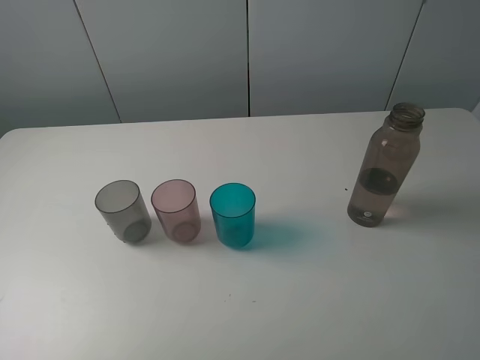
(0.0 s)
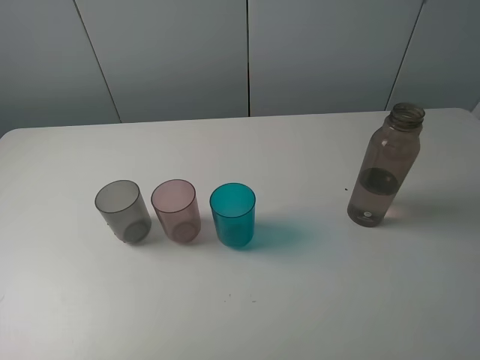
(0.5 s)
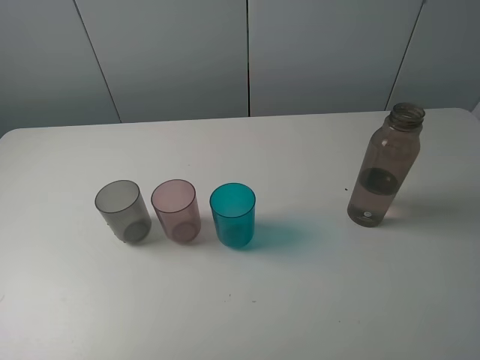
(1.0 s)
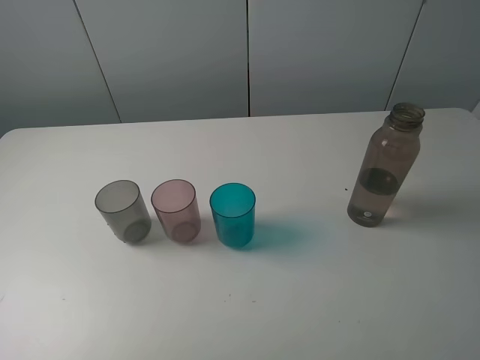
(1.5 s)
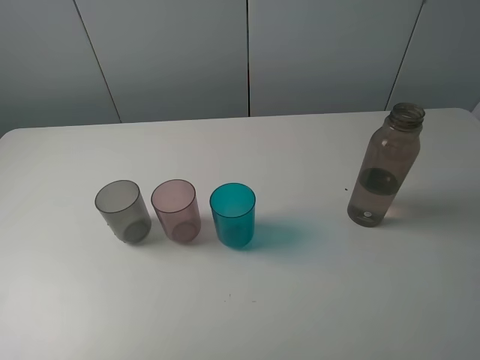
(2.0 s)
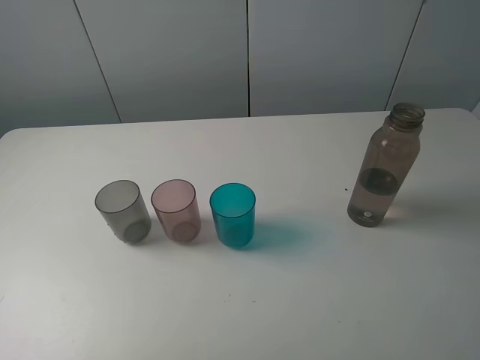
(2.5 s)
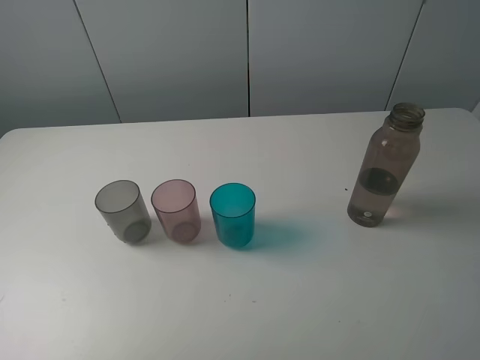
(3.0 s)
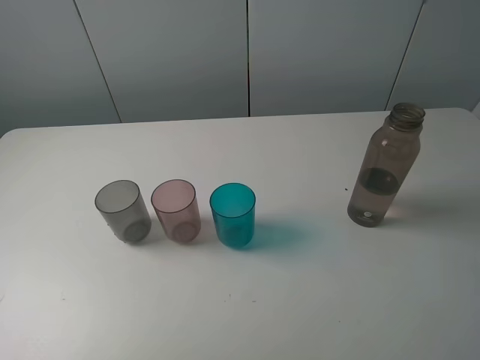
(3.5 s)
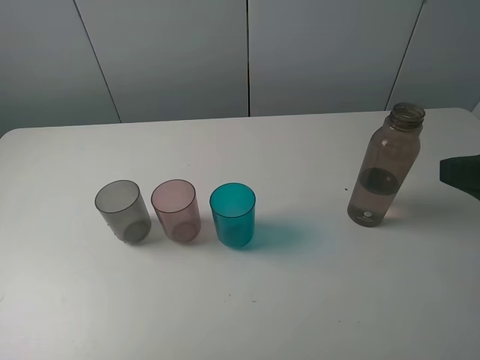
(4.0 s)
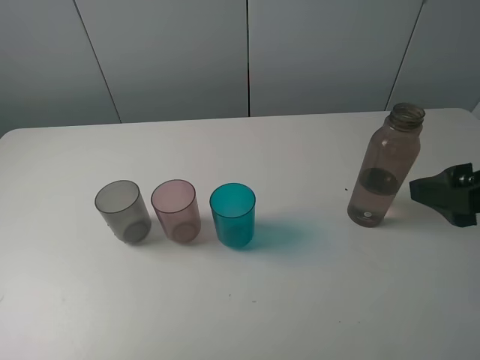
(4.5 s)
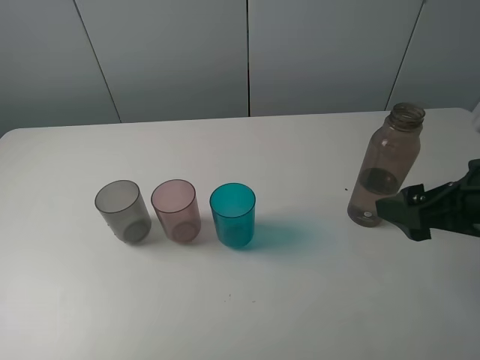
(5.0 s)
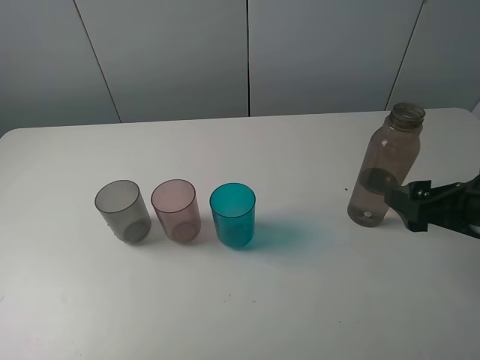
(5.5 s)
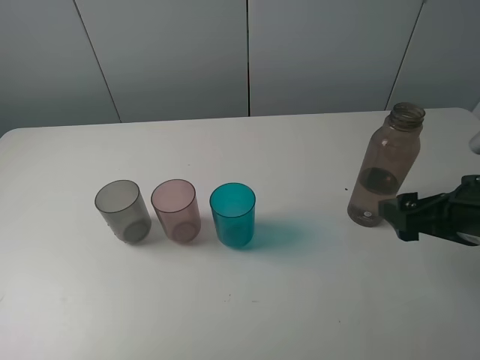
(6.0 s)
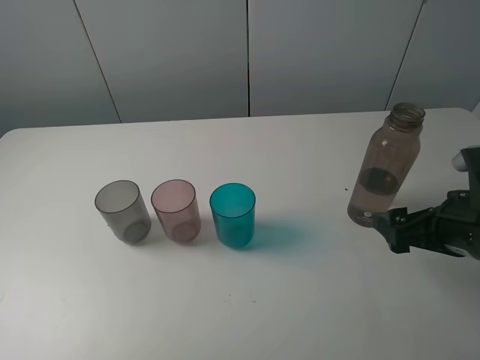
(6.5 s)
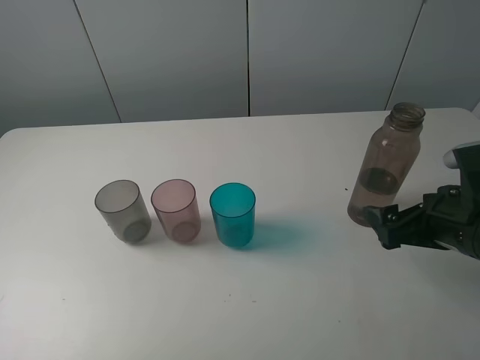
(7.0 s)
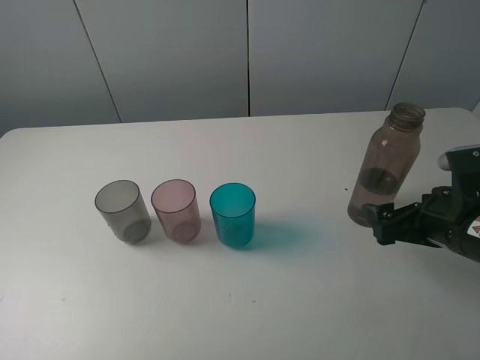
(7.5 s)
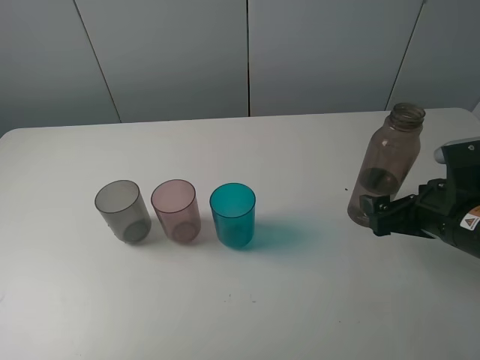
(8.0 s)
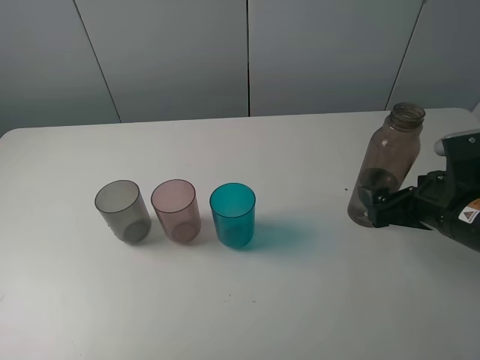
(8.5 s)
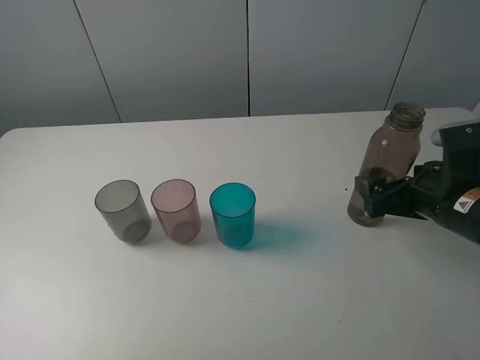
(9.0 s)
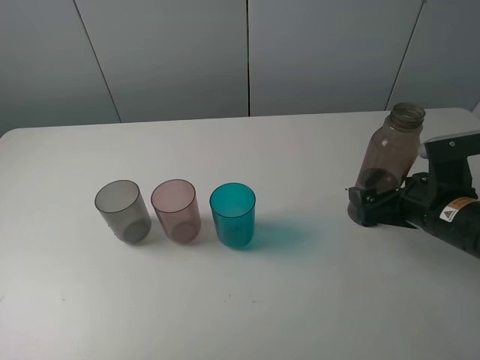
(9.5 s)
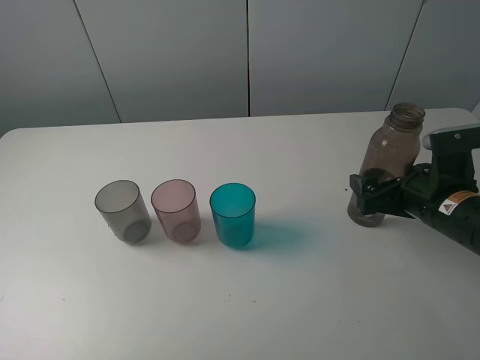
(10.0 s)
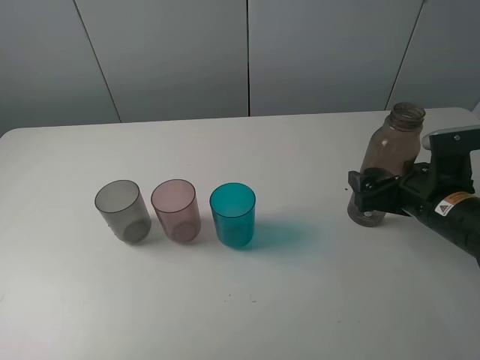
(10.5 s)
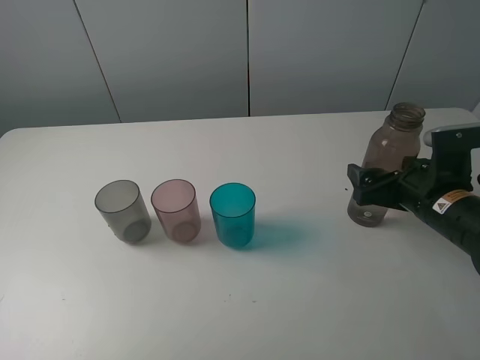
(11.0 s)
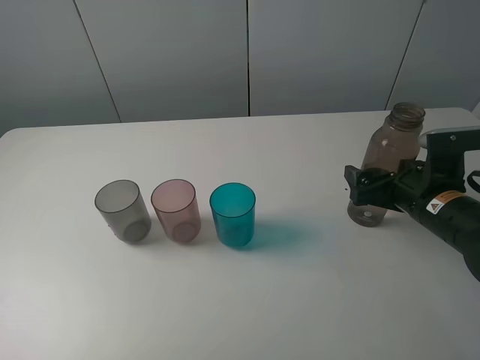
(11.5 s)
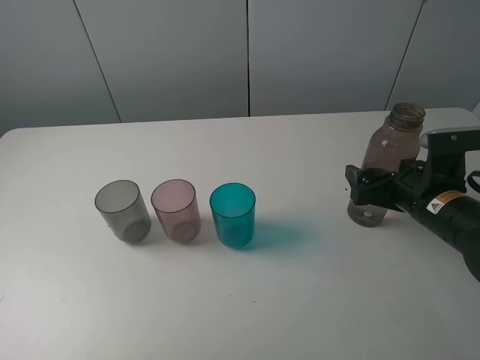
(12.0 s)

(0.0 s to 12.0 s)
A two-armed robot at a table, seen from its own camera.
Task of the whole recording: pick up the bottle filled with water and pour water into the middle cup of the three cups.
0.0 s - 2.0 s: Both grippers stay about where they are.
2.0 s - 4.0 s: The right gripper shifts roughly 10 cm forward.
4.0 s - 6.0 s: The right gripper is displaced downward by roughly 10 cm.
6.0 s - 8.0 s: The right gripper shifts by about 5 cm.
8.0 s - 12.0 s: There are only small adjustments of the grippers.

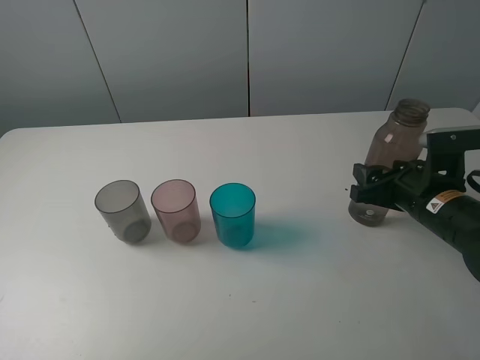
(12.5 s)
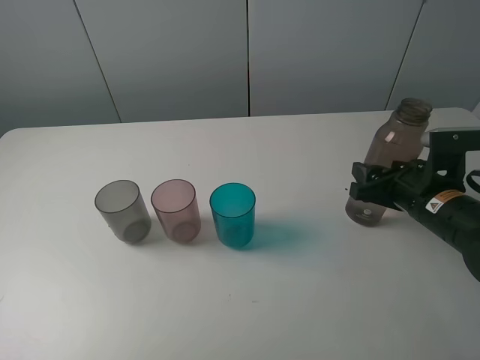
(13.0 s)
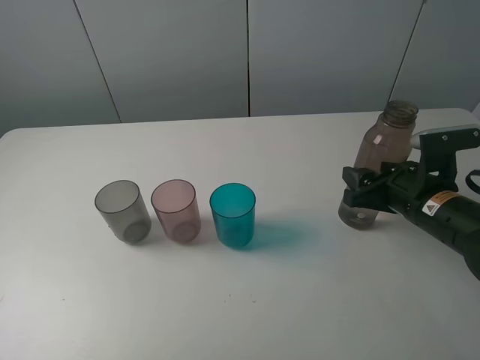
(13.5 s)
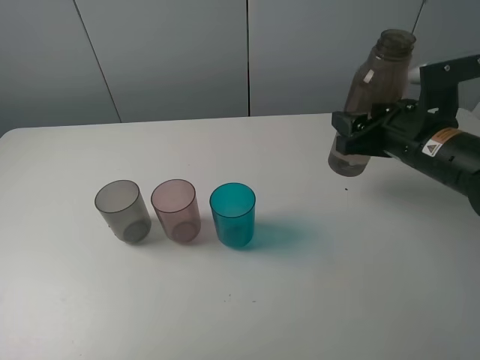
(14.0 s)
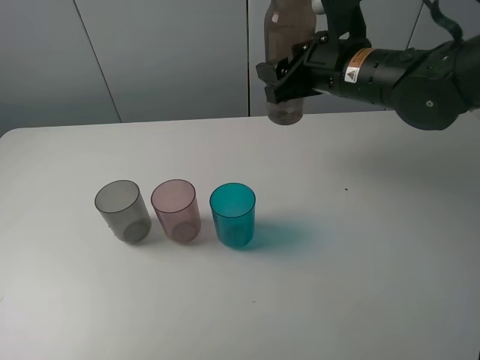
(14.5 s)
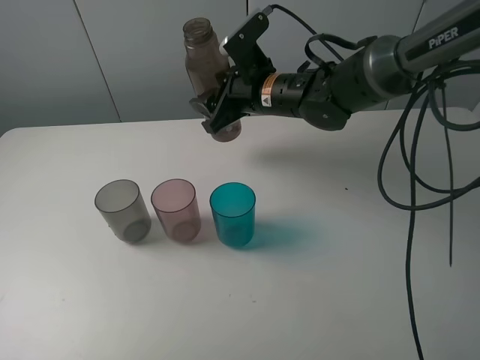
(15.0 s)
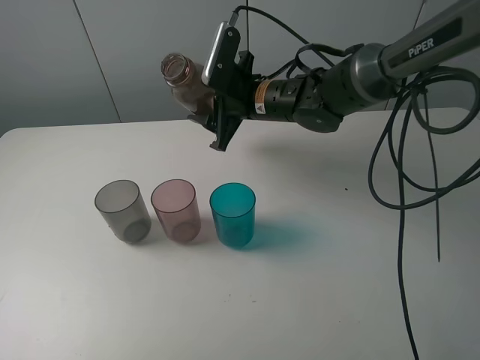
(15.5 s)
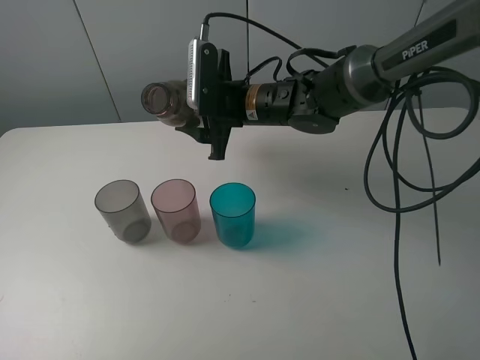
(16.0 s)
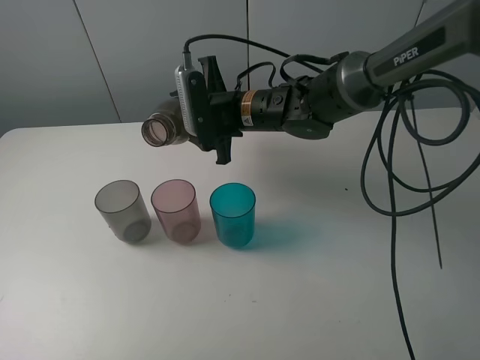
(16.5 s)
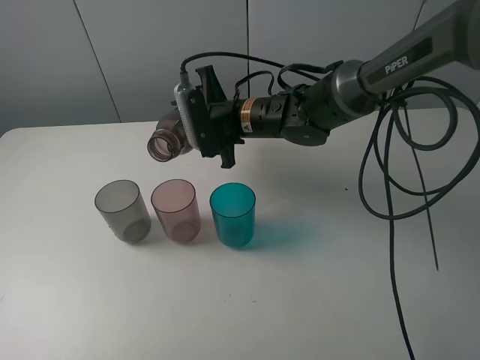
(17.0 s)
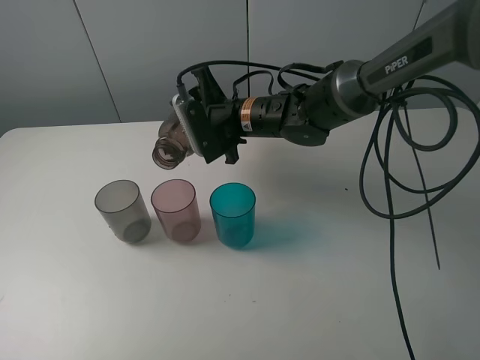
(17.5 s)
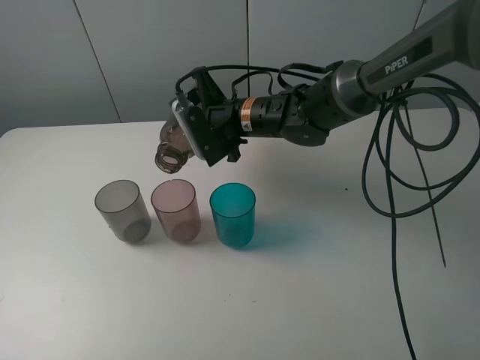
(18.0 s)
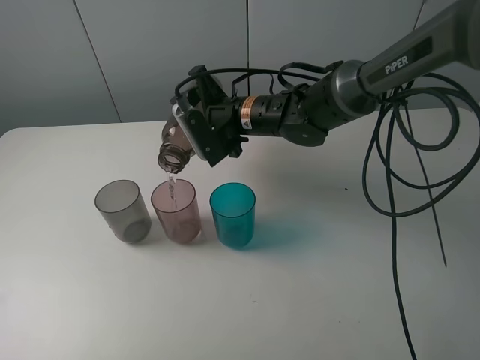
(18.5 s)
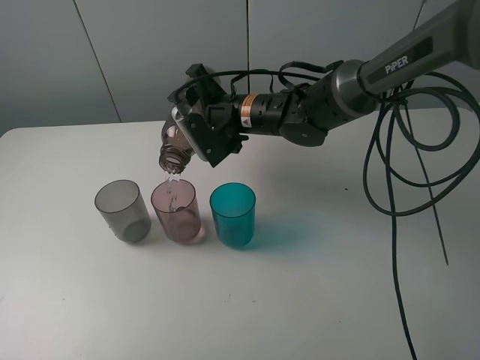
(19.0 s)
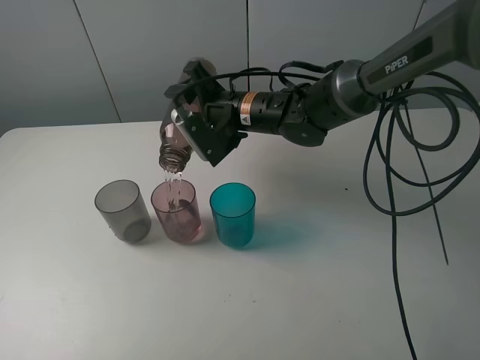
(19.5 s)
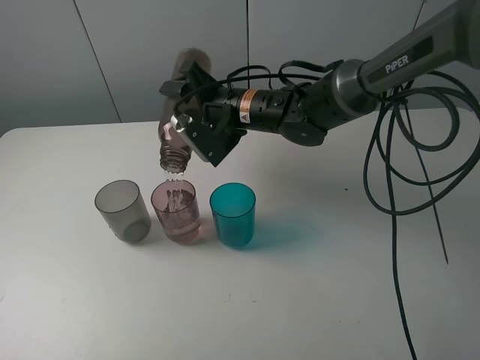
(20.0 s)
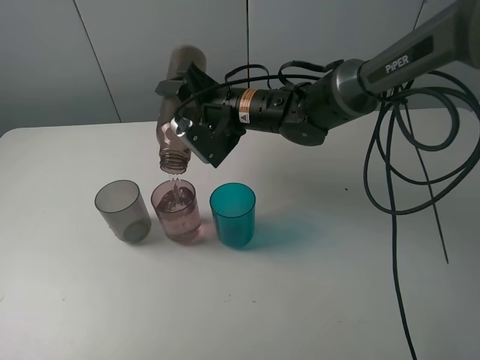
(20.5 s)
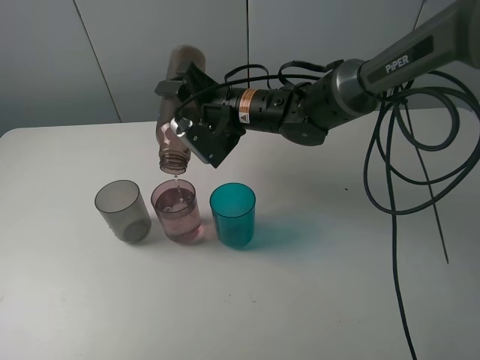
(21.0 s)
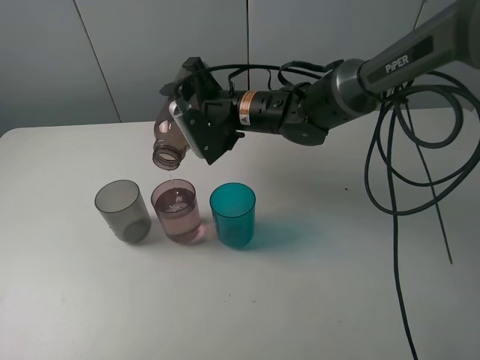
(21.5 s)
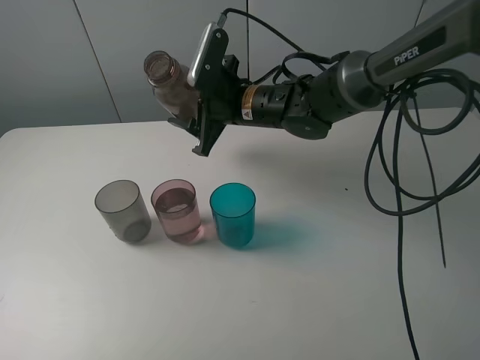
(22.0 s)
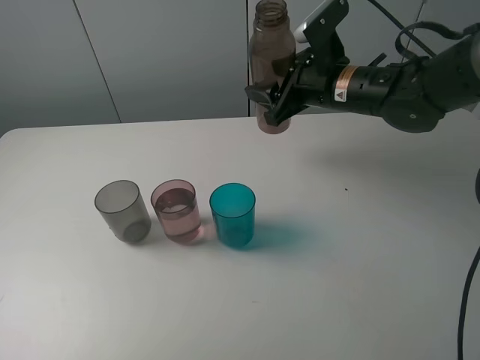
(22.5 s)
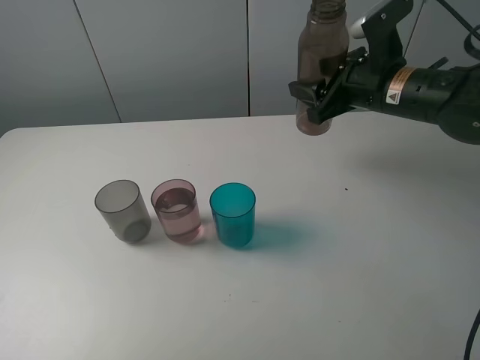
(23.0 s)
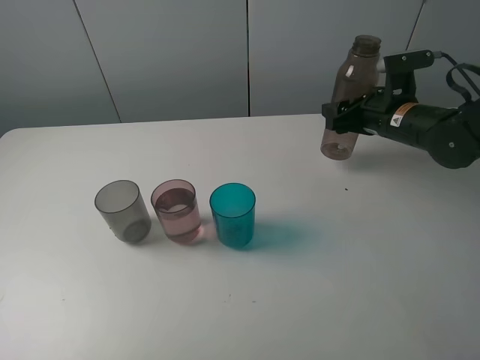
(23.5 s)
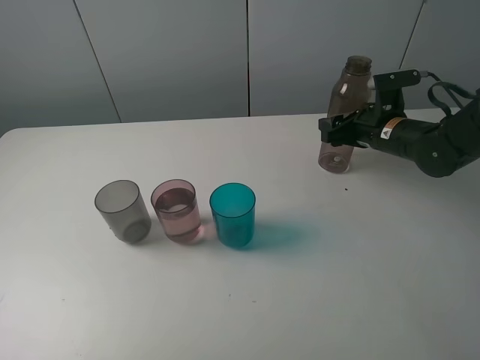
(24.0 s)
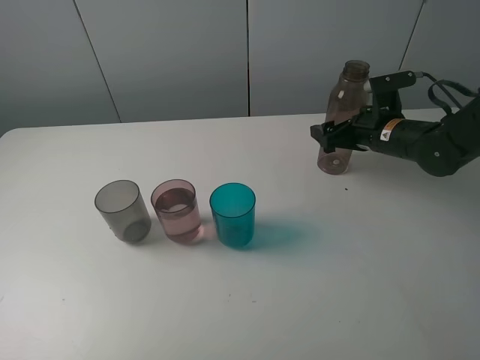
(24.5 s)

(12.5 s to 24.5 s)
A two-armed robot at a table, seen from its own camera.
Task of the whole recording: pick up the bottle filled with water and pour water into the middle cup of the three cups.
Step, 14.0 s - 22.0 s: Pour water from brown bottle to red cup with the right gripper.
12.5 s - 14.5 s: The right gripper heads to the left, upward and forward, covering about 20 cm.
14.5 s - 16.5 s: The right gripper travels to the left and downward by some 15 cm.
18.5 s - 20.5 s: The grippers stay close to where they were, moving slightly.
20.5 s - 22.5 s: The right gripper travels to the right by some 15 cm.
22.5 s - 24.5 s: The right gripper moves downward and to the right, roughly 15 cm, and opens.

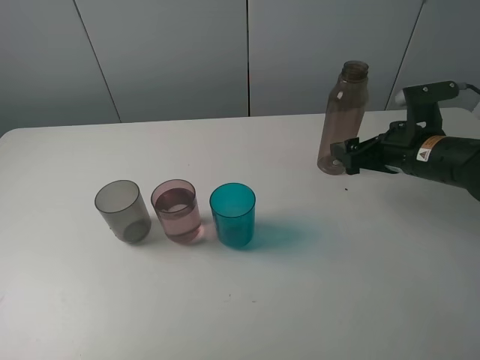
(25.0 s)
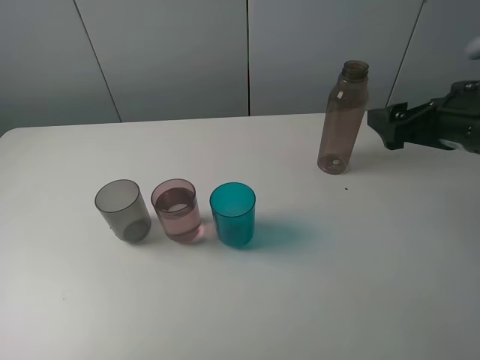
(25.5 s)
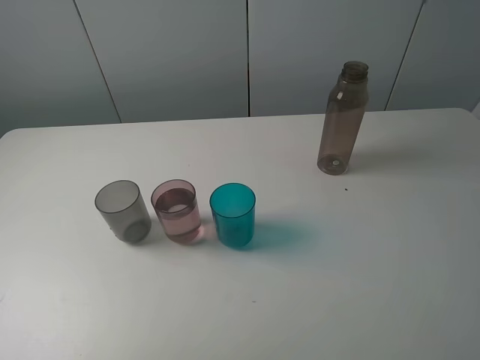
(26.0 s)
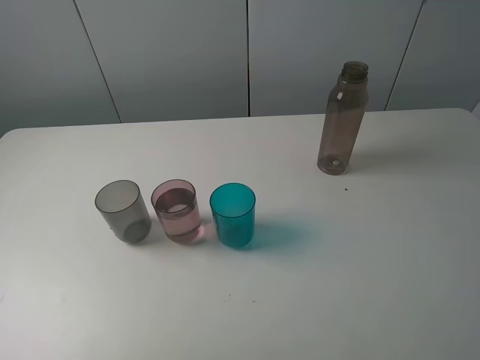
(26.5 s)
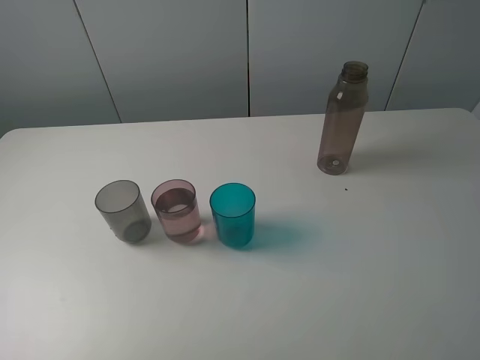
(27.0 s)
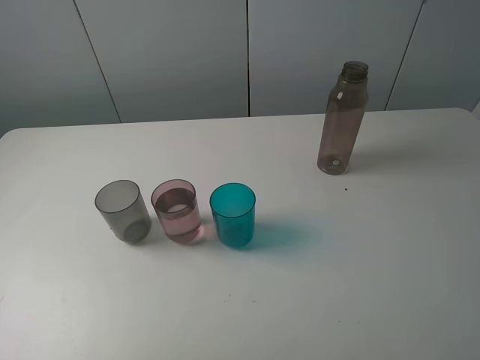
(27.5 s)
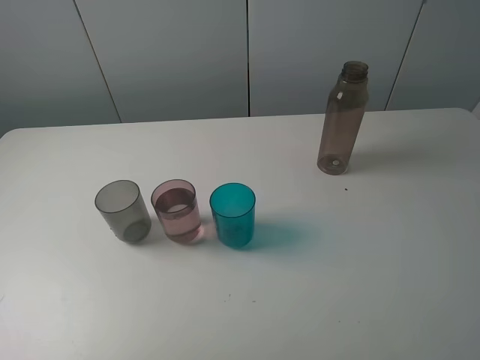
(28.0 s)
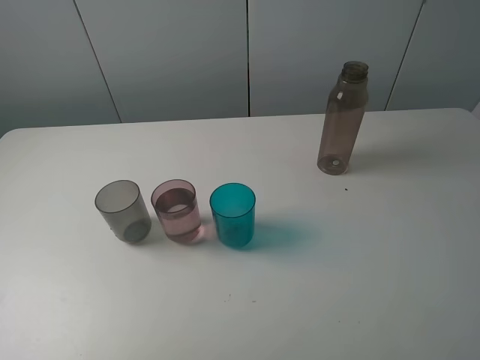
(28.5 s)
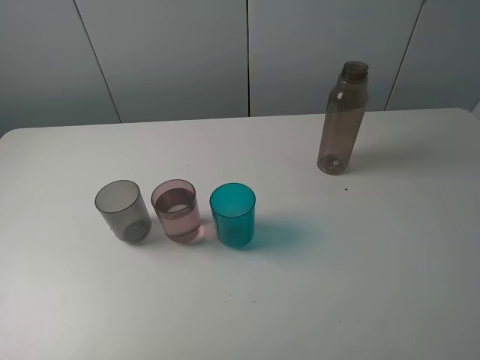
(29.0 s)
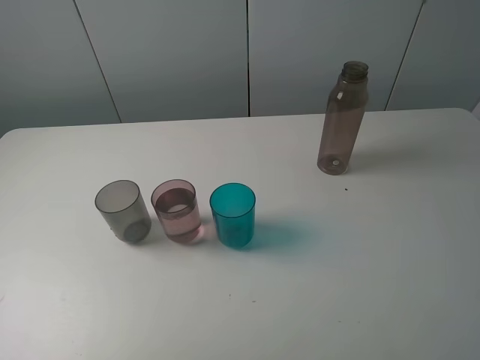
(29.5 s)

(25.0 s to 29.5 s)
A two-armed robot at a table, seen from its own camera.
Task of the whole recording: pick up the bottle filled with water and pour water into the middle cup of the three cups.
25.0 s - 27.0 s: The right gripper heads backward and upward, covering roughly 35 cm.
